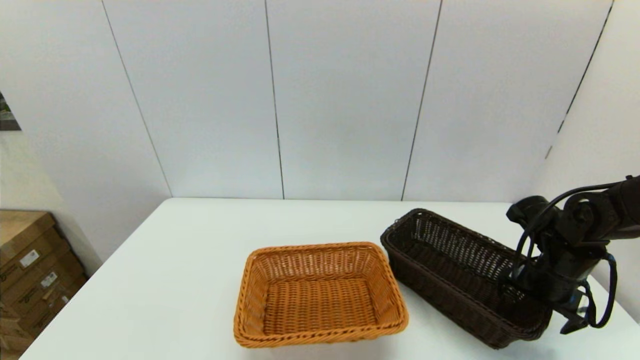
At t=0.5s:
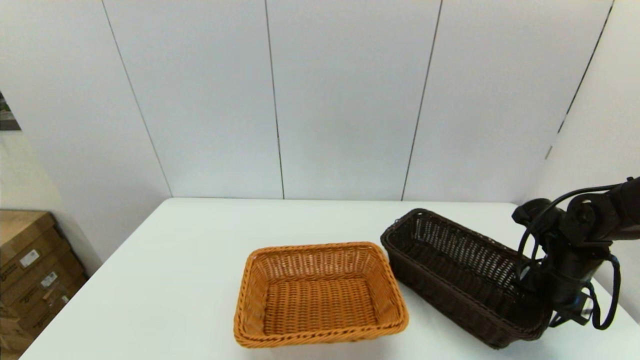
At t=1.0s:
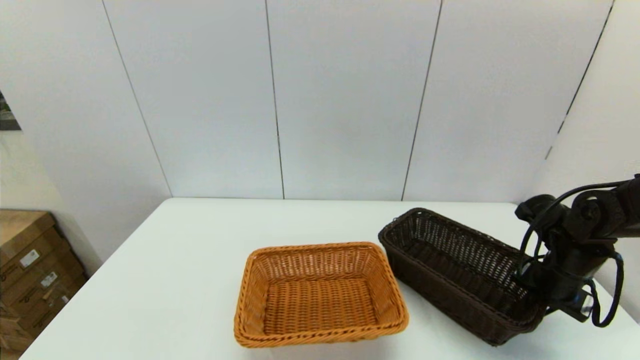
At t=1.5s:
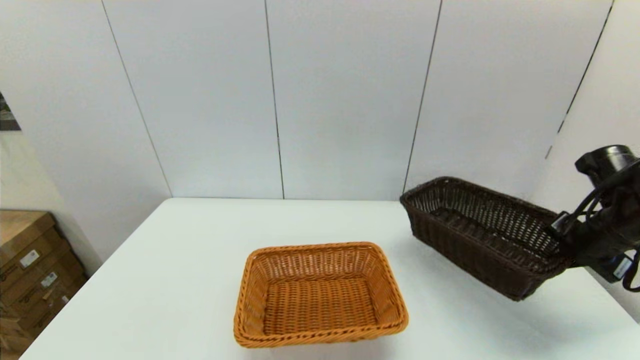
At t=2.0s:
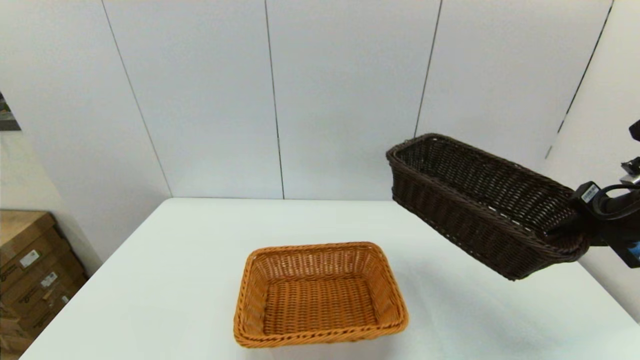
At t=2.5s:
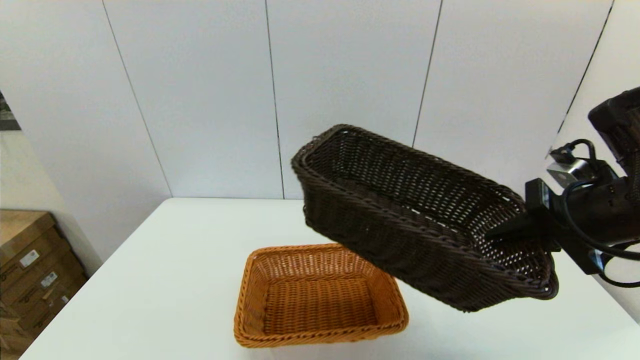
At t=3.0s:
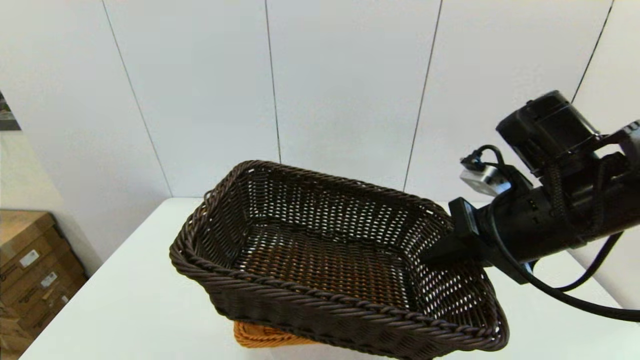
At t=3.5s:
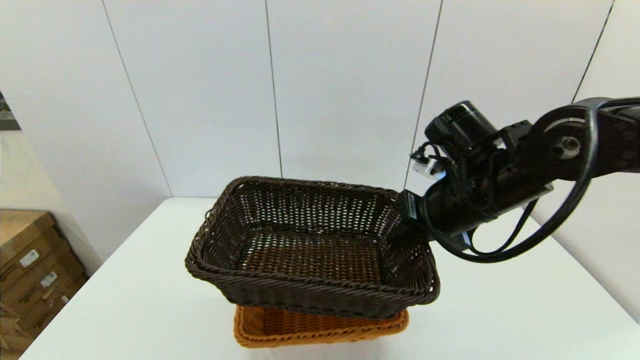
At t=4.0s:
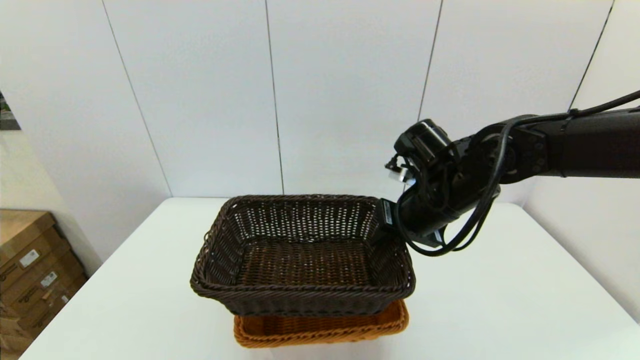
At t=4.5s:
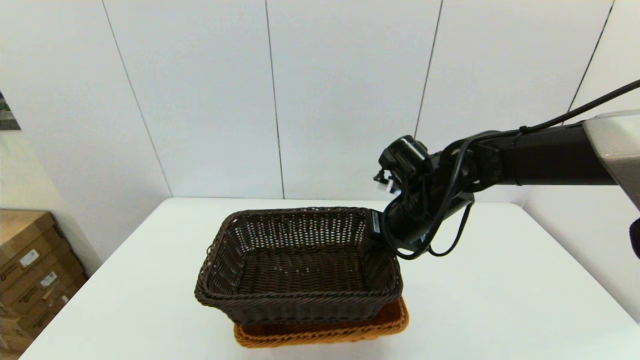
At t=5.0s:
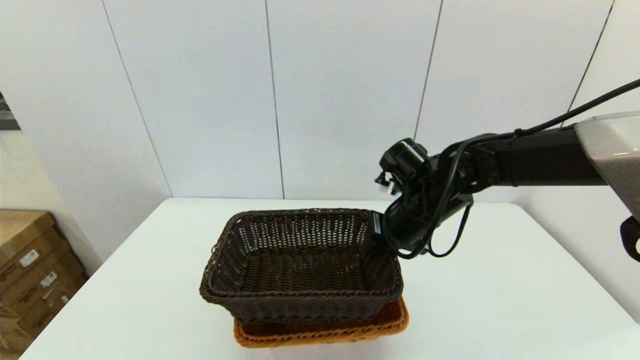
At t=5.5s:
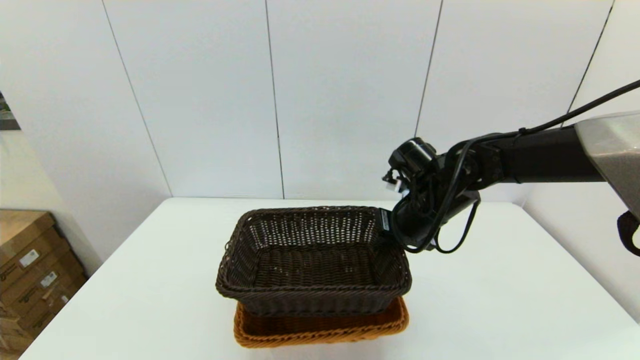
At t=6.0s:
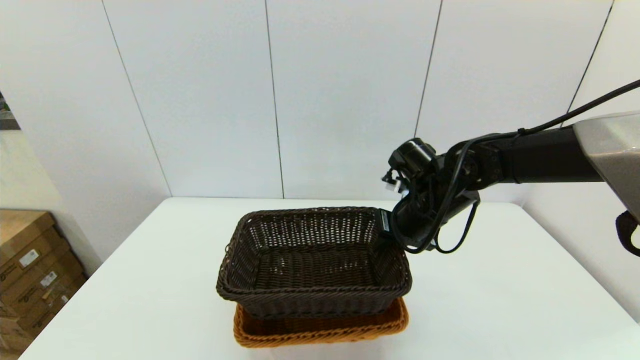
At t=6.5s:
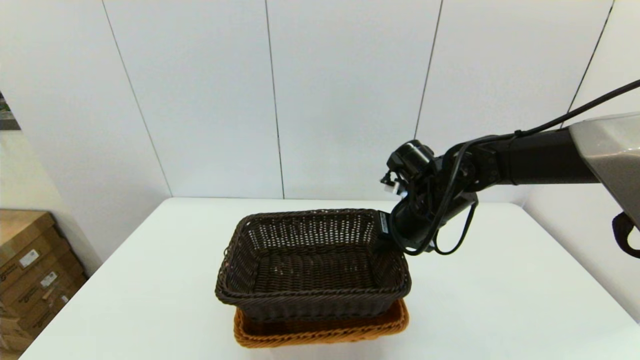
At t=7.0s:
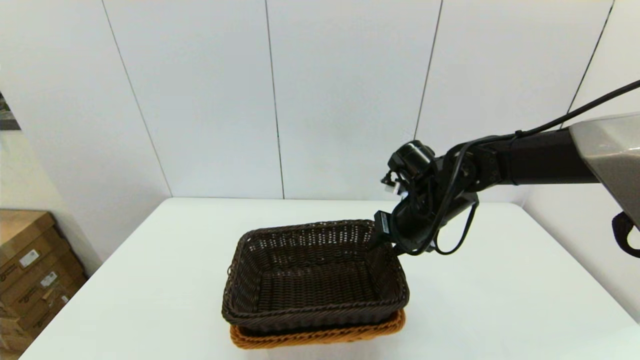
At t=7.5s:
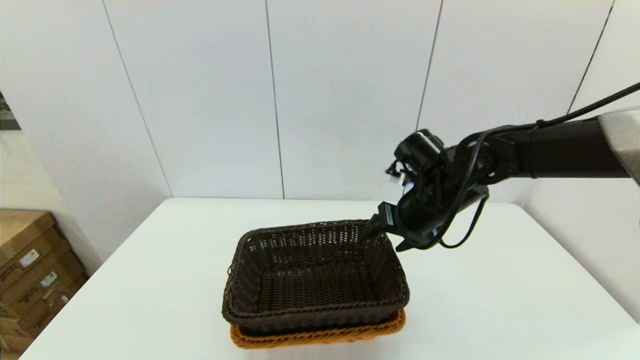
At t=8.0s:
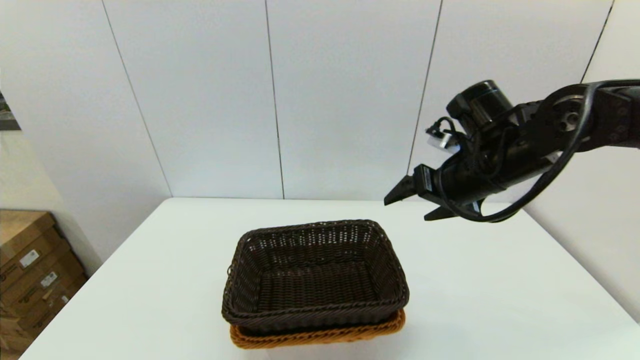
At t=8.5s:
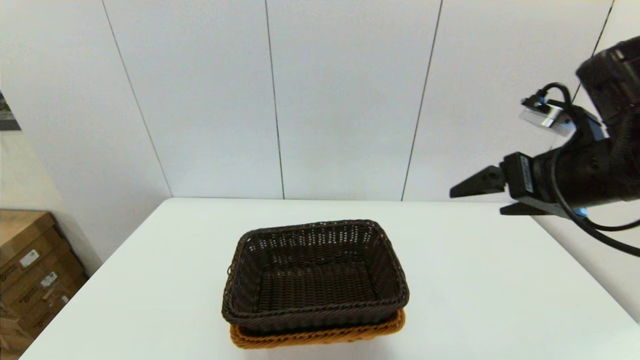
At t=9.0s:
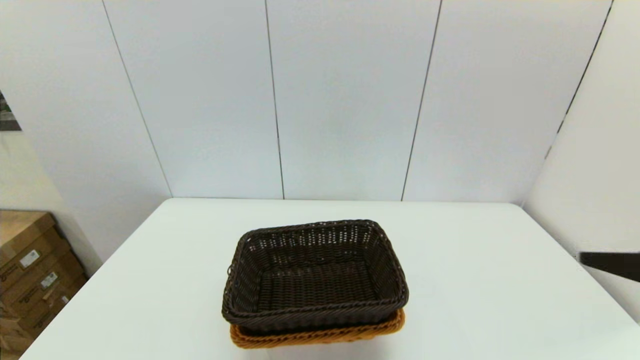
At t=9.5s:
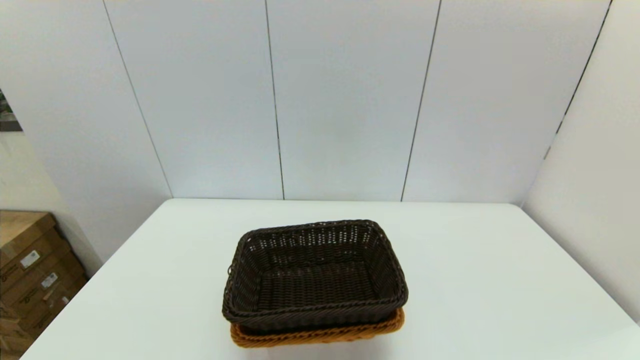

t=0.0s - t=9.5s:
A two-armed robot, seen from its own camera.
Task of the whole recording: stack a basket on top of another basket.
Step, t=1.0s - t=7.5s: Place the dark basket into the light color basket with the right gripper.
t=0.0s - t=2.0s: The right gripper moves upward, approximately 15 cm, and closes up.
t=2.0s - t=4.0s: The right gripper is displaced to the left by roughly 20 cm.
t=4.0s - t=5.5s: The grippers move only a little.
t=5.5s - t=7.5s: The right gripper opens.
t=7.5s - t=9.5s: The right gripper heads backward and to the right, covering approximately 40 cm.

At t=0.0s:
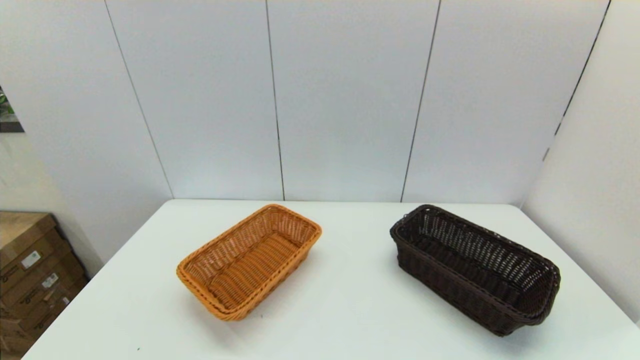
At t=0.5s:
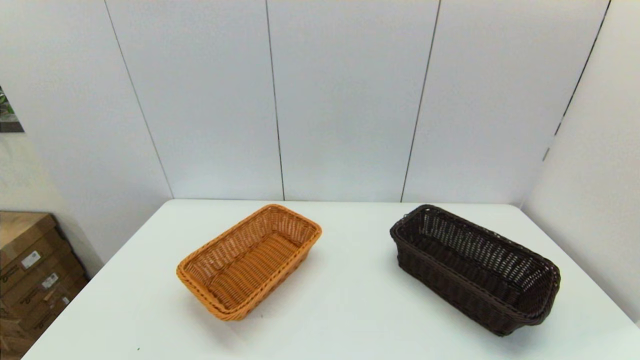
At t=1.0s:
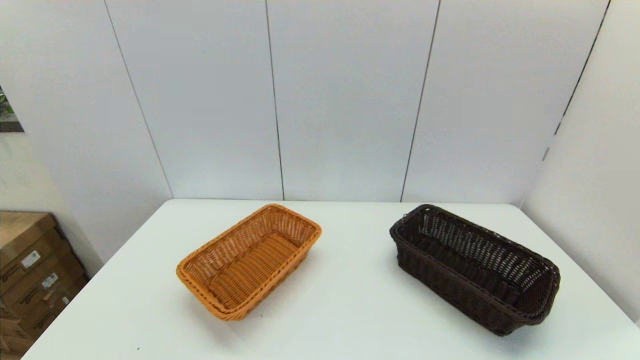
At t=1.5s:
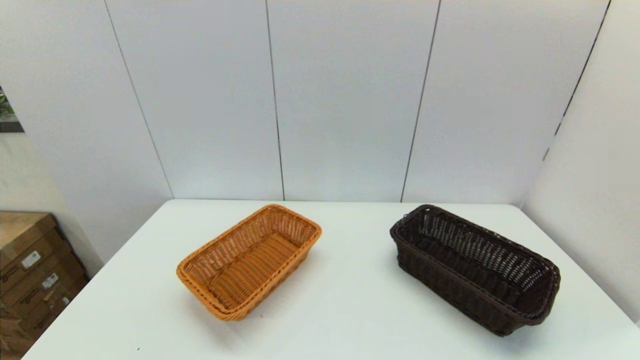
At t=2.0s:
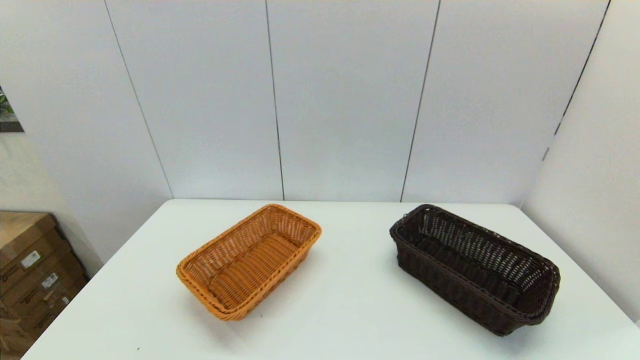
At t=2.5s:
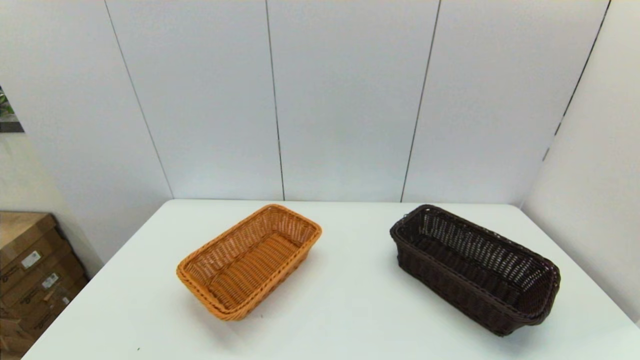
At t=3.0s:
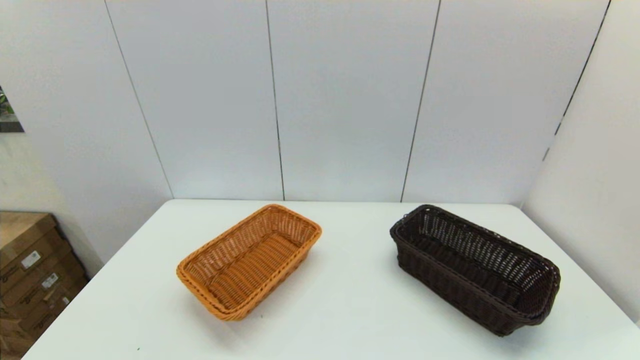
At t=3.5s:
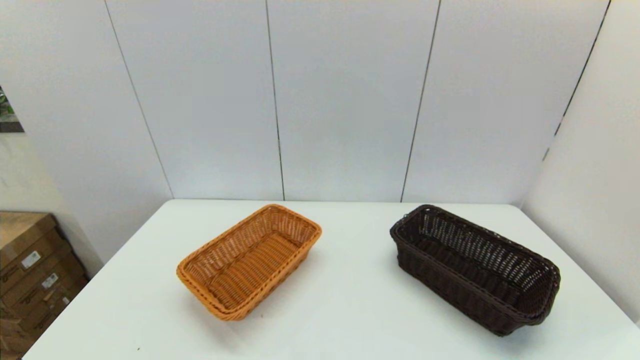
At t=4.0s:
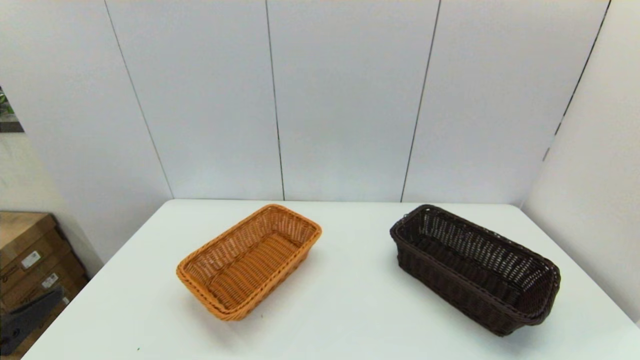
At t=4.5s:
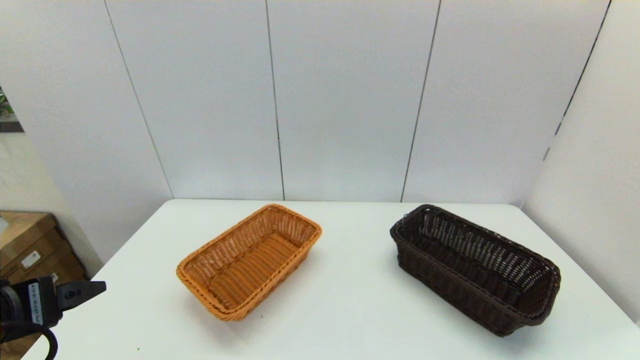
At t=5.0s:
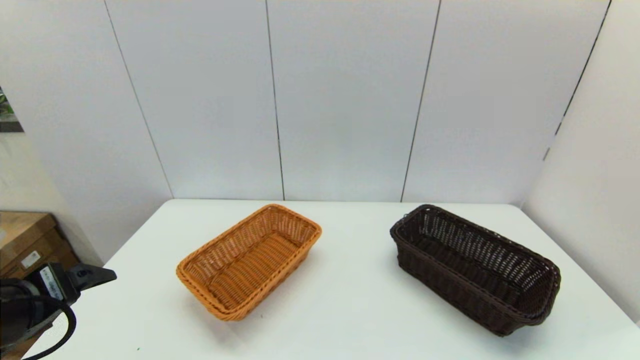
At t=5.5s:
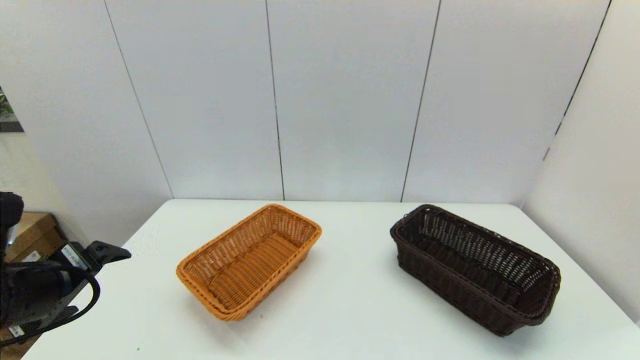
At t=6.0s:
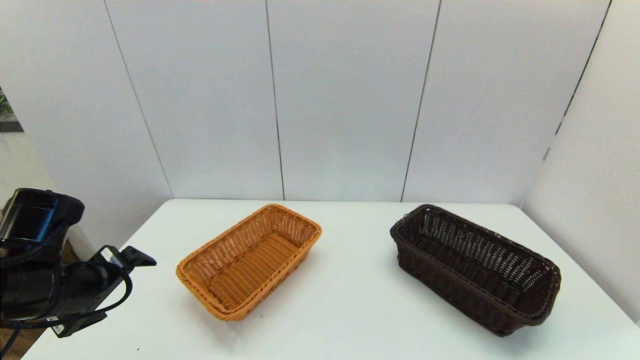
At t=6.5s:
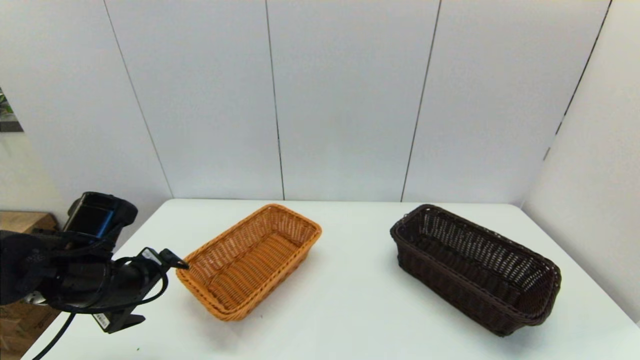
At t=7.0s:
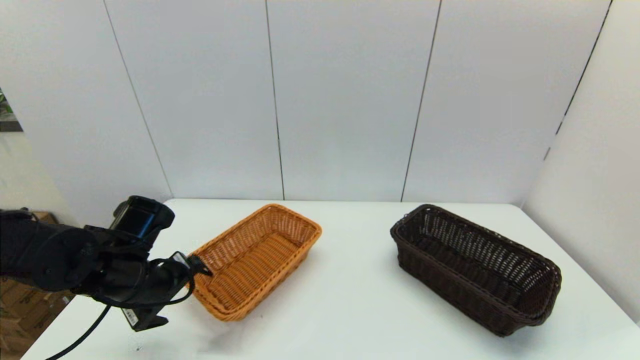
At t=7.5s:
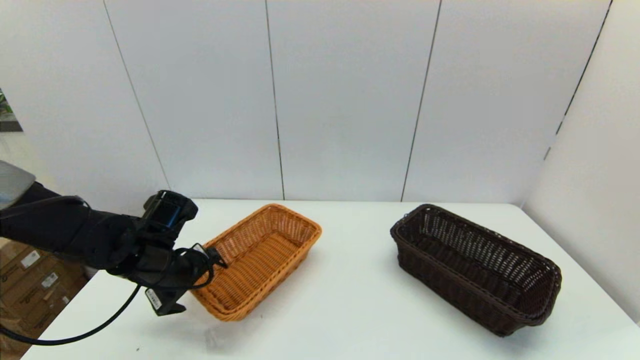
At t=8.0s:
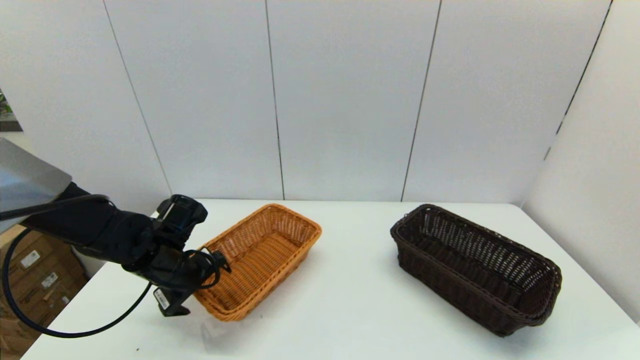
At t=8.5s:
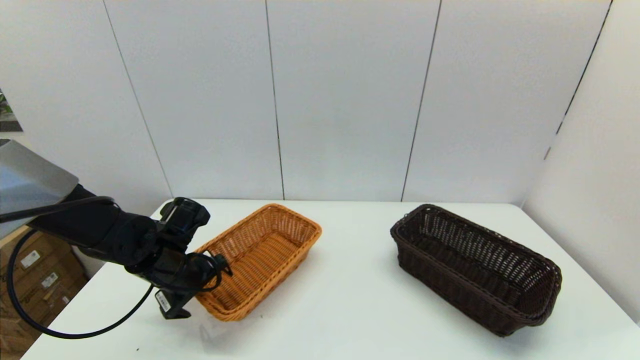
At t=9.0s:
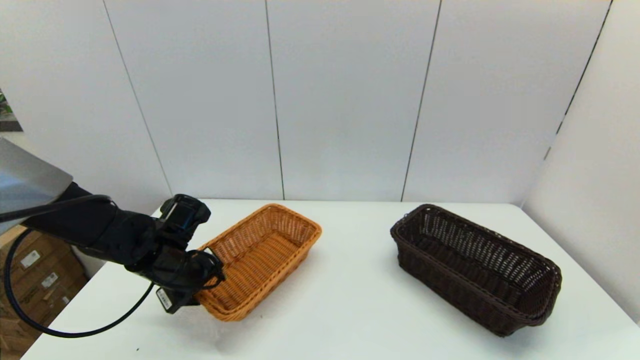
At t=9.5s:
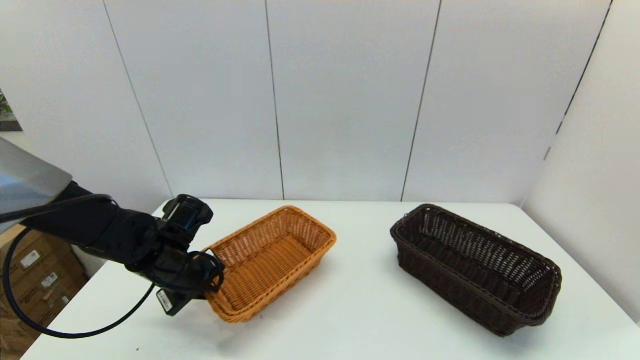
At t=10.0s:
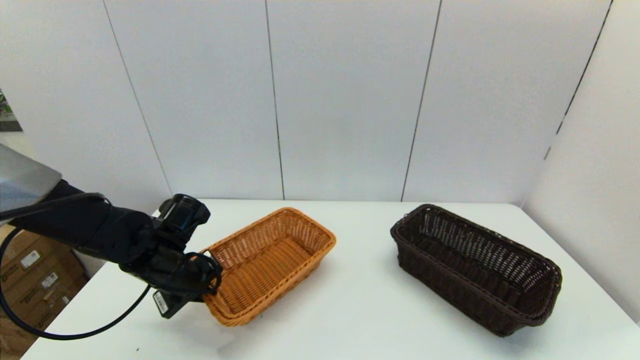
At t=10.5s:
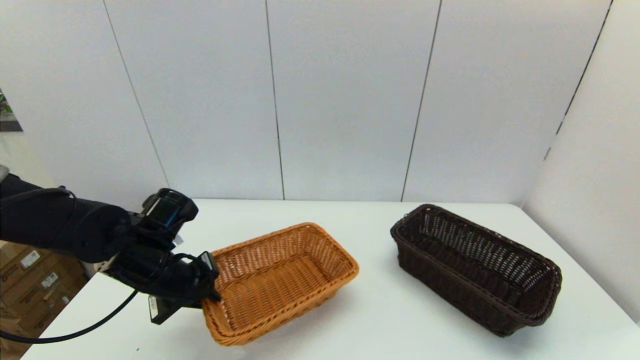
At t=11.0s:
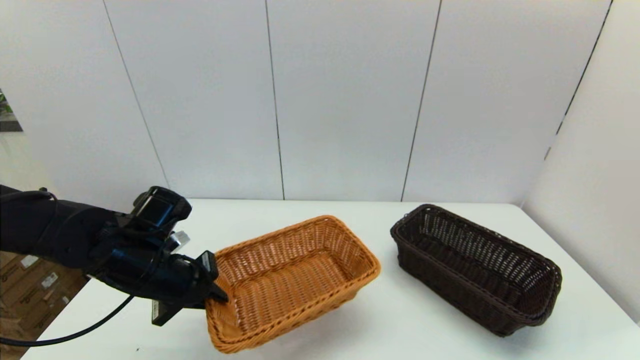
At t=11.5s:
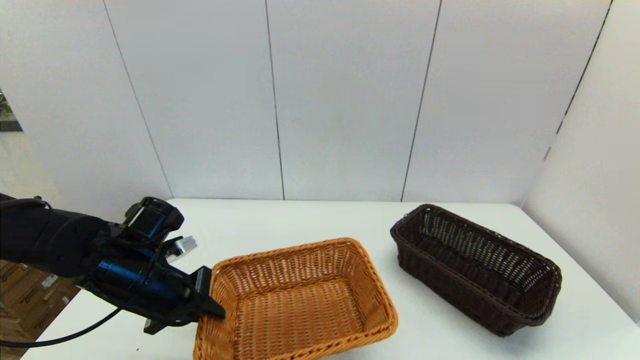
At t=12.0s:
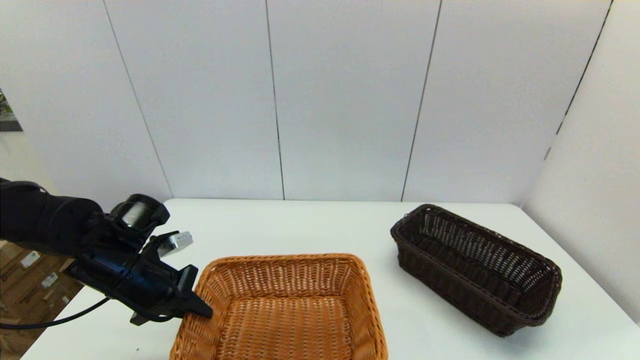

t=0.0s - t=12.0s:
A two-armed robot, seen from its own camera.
Task of the whole recording: stack a basket on top of another basket.
Step, t=4.0s - t=10.0s: Grasp the light basket with the left gripper.
t=0.0s - t=2.0s: Both grippers stay about where they are.
t=4.0s - t=6.0s: The left gripper goes about 15 cm forward and downward.
t=6.0s - t=8.0s: The left gripper moves forward, downward and to the right, some 15 cm.
t=8.0s - t=10.0s: The left gripper closes up.
t=10.0s - t=12.0s: The left gripper ends up some 5 cm from where it was.
